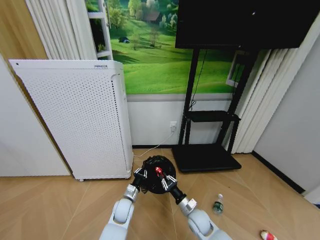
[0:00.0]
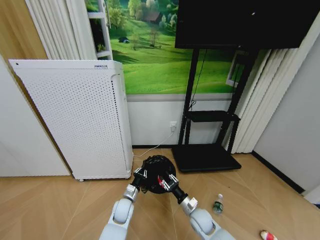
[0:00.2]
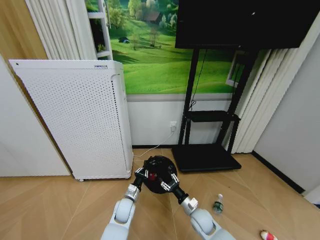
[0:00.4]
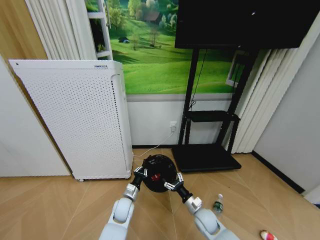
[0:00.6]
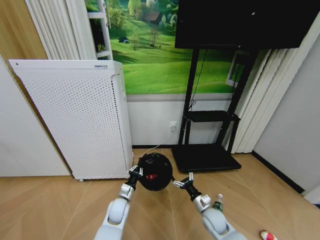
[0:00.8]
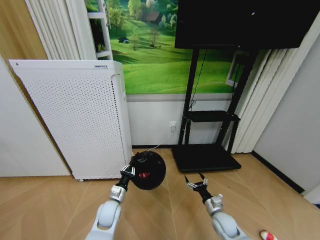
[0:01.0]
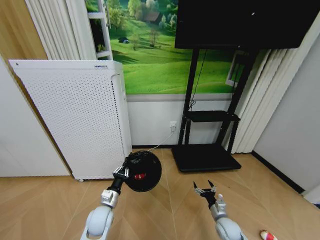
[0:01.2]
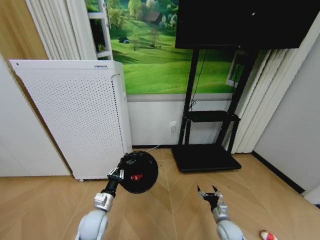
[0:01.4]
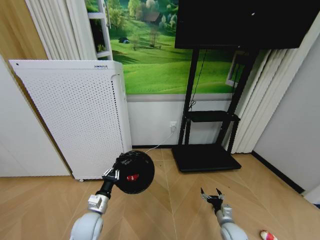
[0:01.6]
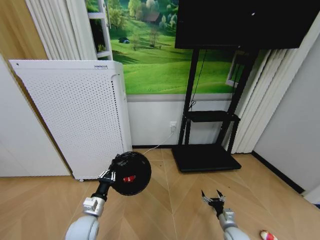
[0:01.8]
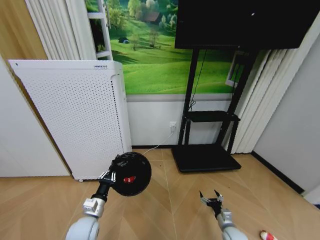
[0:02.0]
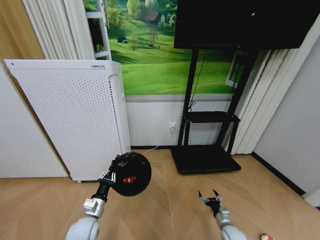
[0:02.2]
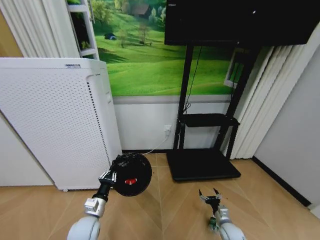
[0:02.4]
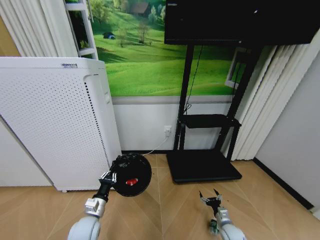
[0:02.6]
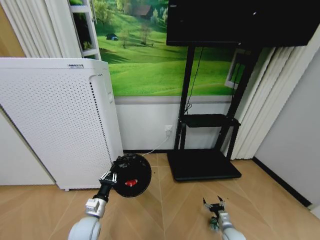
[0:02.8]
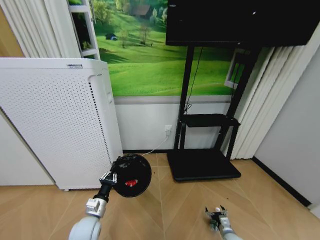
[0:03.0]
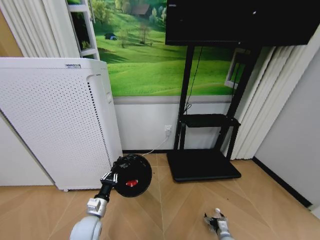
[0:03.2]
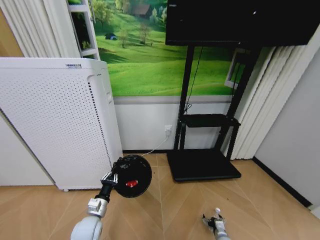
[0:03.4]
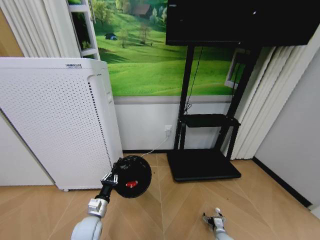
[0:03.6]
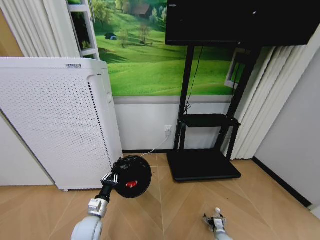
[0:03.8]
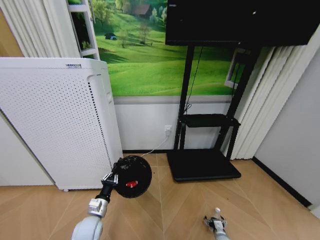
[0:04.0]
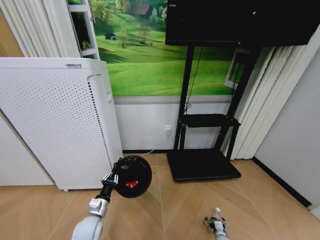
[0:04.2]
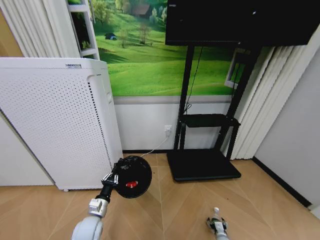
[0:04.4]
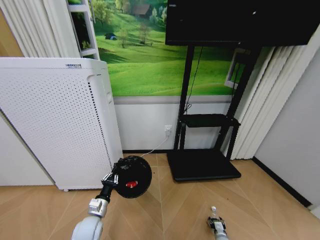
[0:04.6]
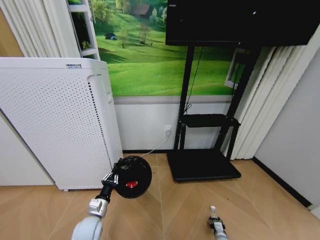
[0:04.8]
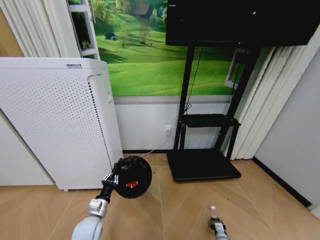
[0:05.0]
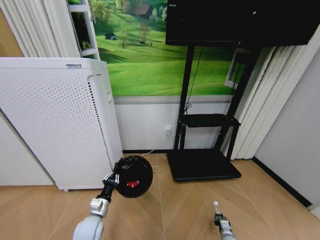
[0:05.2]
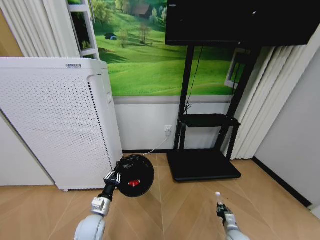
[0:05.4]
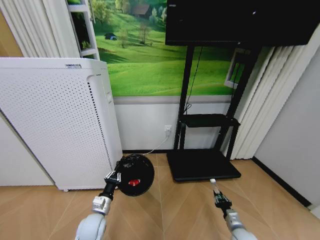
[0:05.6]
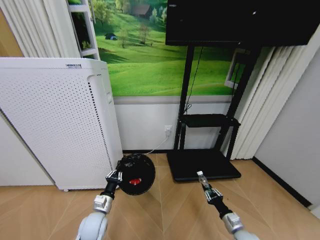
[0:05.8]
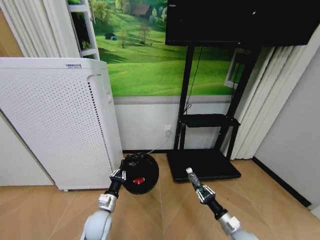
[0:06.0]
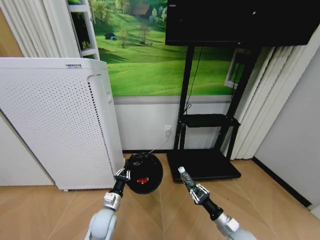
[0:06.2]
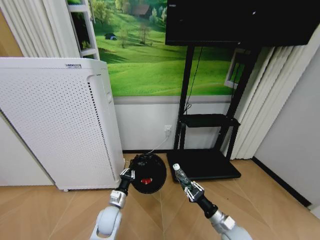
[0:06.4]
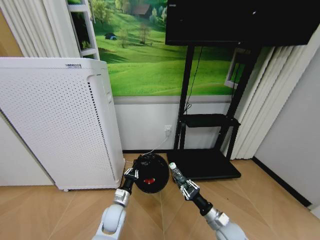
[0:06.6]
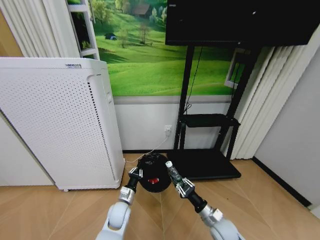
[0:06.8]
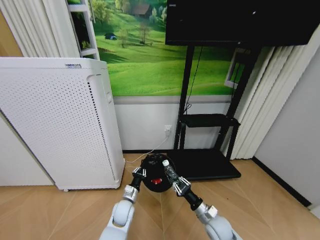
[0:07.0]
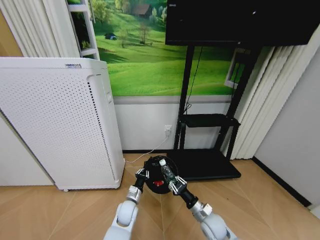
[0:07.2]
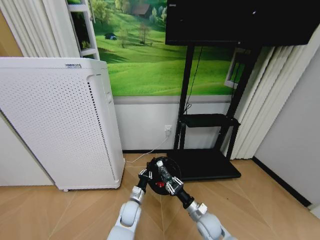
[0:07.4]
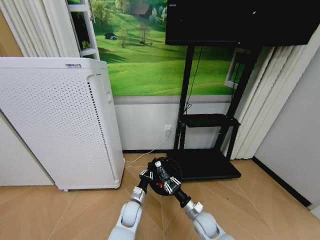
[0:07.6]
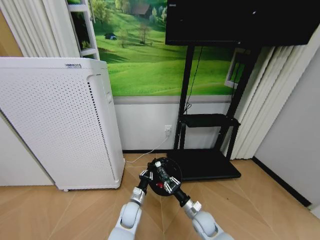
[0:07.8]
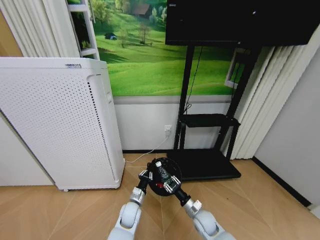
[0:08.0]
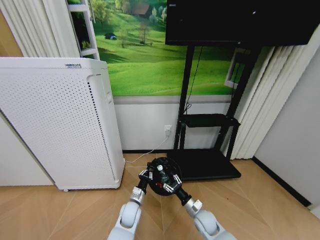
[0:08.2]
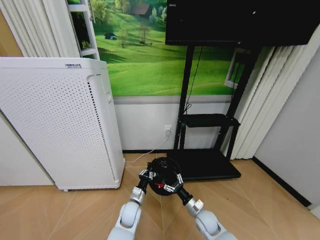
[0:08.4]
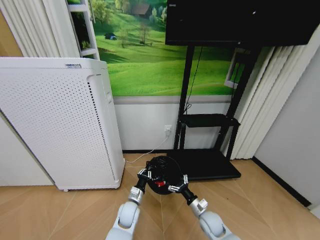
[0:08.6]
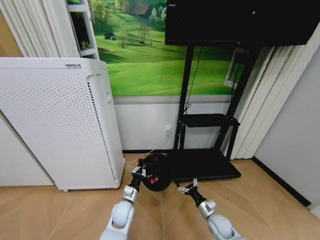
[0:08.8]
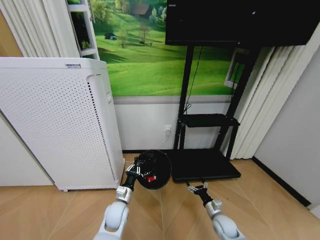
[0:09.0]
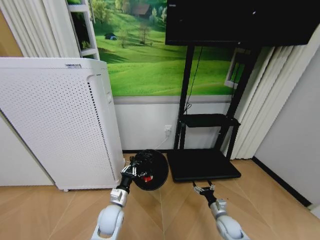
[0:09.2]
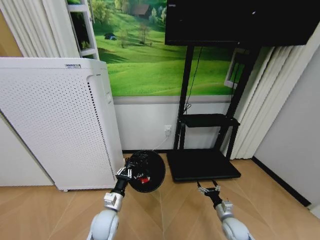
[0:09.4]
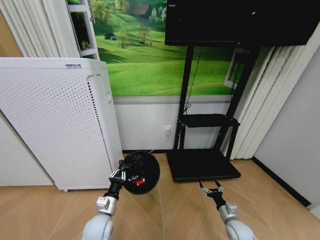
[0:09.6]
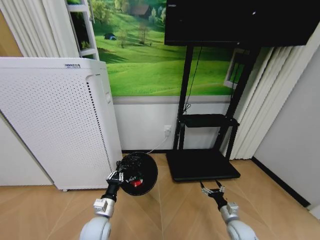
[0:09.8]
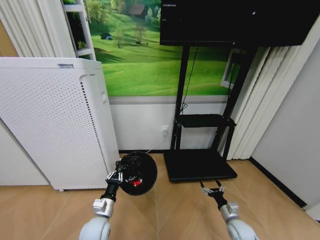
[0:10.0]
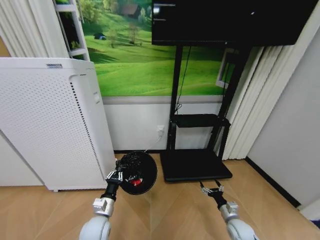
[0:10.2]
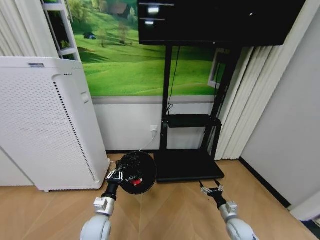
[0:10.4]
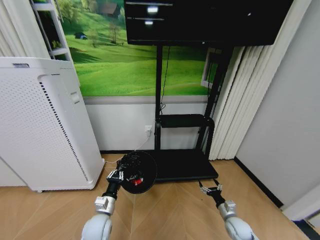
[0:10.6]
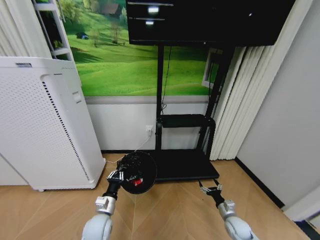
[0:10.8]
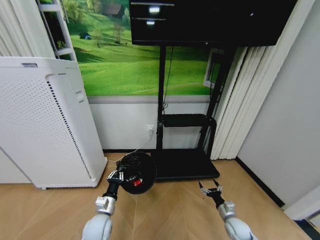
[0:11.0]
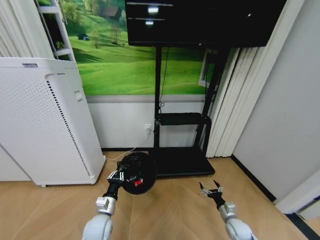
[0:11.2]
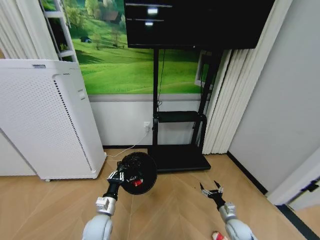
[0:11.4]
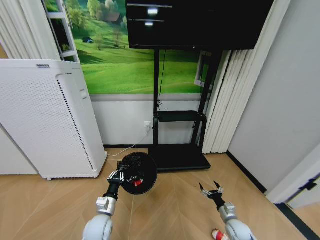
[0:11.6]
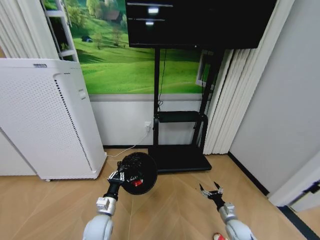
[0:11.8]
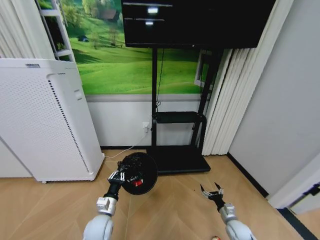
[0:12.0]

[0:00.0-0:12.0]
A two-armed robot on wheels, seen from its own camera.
Task of the whole recording: Pick up the trash bin and place the garbage on the floor into it.
0:00.0 to 0:01.6: The left gripper travels to the left, backward and upward by approximately 15 cm; the right gripper heads to the right, covering some 15 cm, and opens.
0:01.6 to 0:03.0: The right gripper goes approximately 10 cm downward.
0:03.0 to 0:04.4: The right gripper goes some 5 cm downward.
0:04.4 to 0:06.0: The right gripper shifts roughly 20 cm upward, and closes its fingers.
0:06.0 to 0:07.6: The right gripper shifts some 15 cm to the left and forward. The left gripper travels to the right, downward and forward by approximately 15 cm.
0:07.6 to 0:09.0: The right gripper goes some 10 cm to the right, and opens. The left gripper is displaced to the left by approximately 5 cm.
0:09.0 to 0:10.4: The left gripper is displaced backward and to the left by roughly 10 cm. Meanwhile the right gripper travels to the right by some 5 cm.

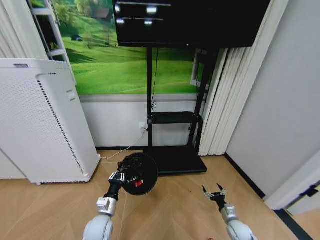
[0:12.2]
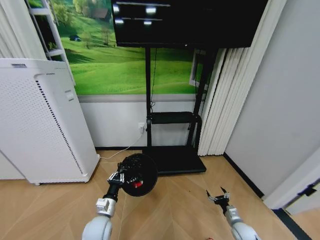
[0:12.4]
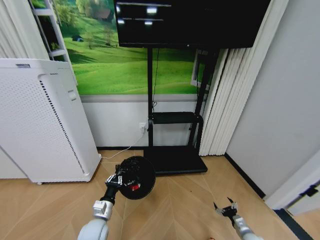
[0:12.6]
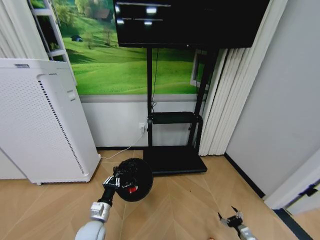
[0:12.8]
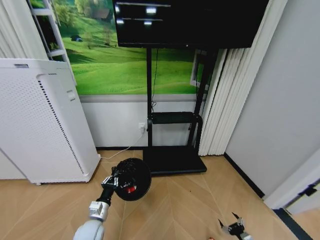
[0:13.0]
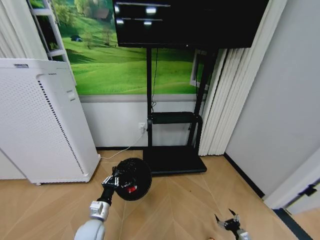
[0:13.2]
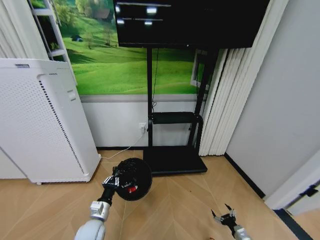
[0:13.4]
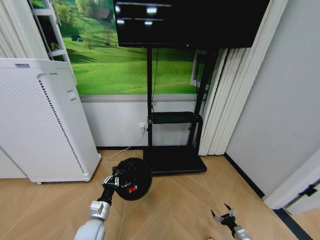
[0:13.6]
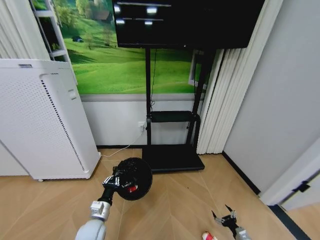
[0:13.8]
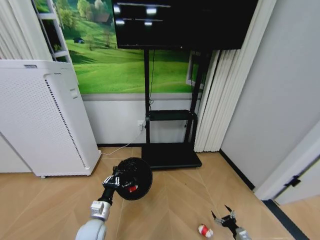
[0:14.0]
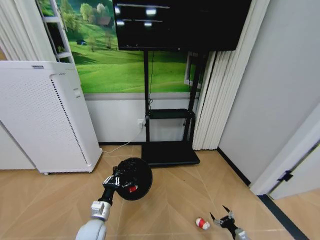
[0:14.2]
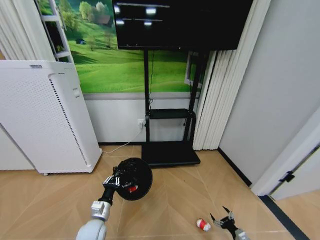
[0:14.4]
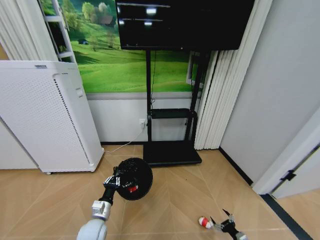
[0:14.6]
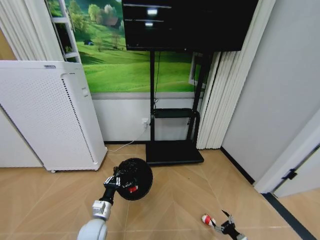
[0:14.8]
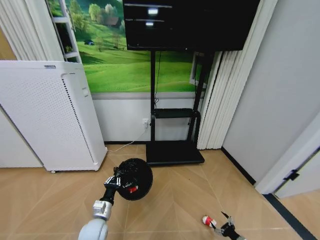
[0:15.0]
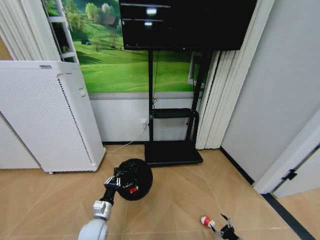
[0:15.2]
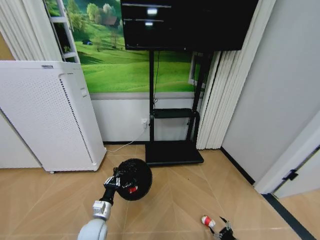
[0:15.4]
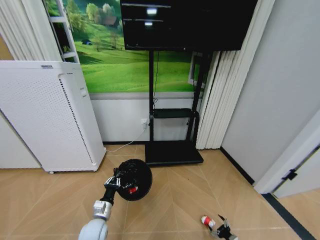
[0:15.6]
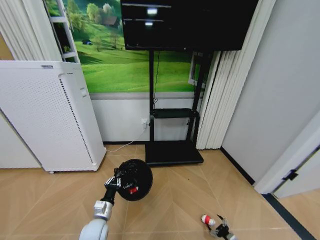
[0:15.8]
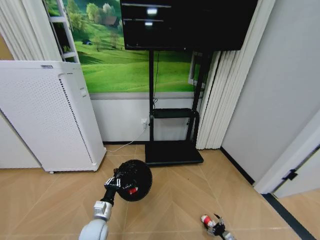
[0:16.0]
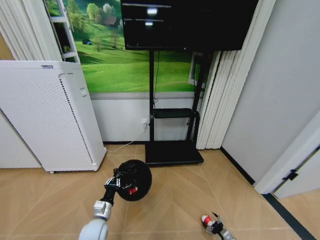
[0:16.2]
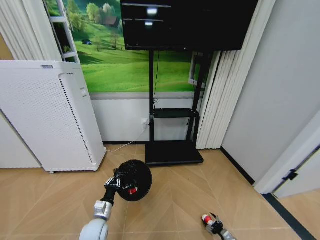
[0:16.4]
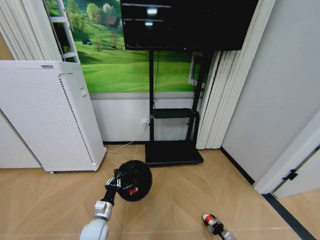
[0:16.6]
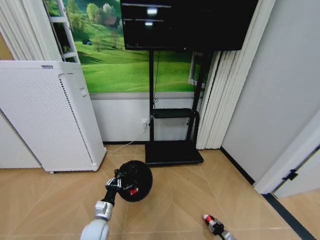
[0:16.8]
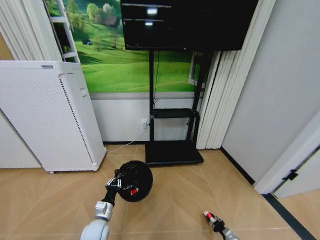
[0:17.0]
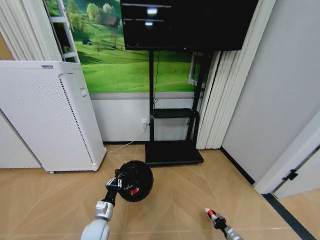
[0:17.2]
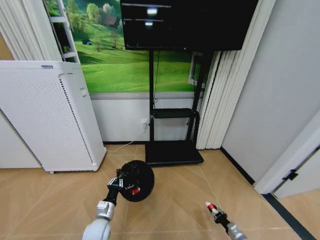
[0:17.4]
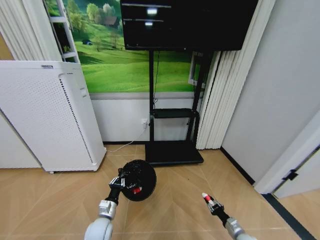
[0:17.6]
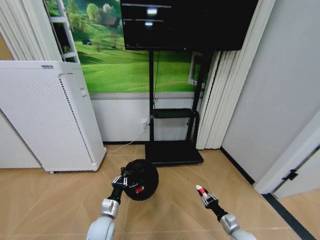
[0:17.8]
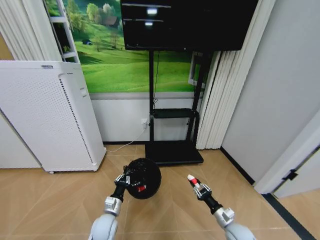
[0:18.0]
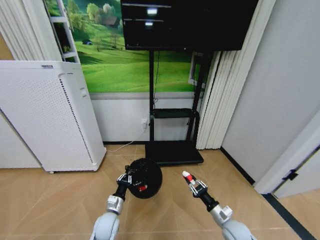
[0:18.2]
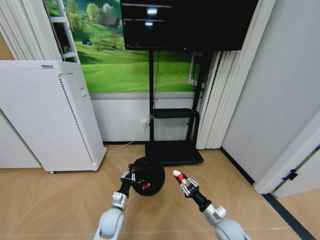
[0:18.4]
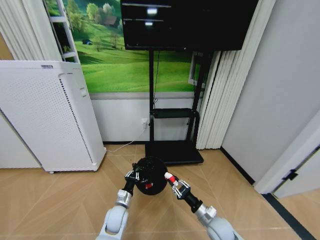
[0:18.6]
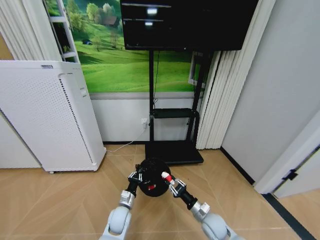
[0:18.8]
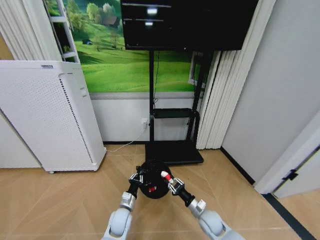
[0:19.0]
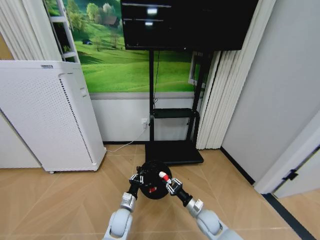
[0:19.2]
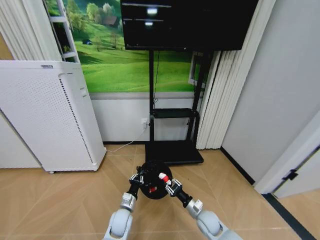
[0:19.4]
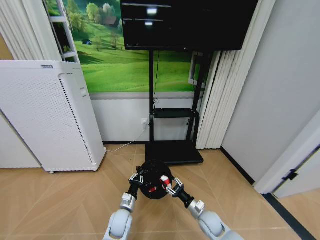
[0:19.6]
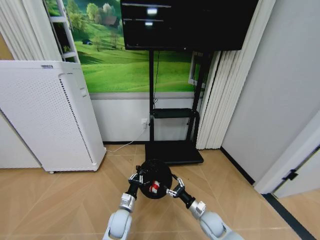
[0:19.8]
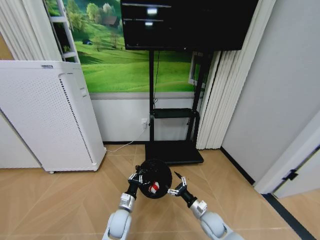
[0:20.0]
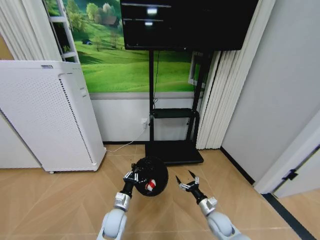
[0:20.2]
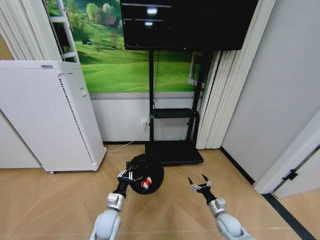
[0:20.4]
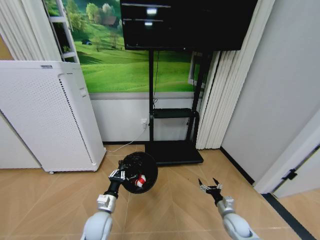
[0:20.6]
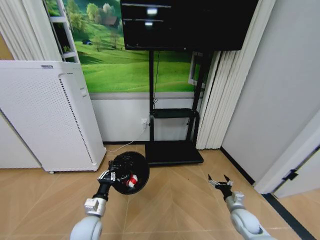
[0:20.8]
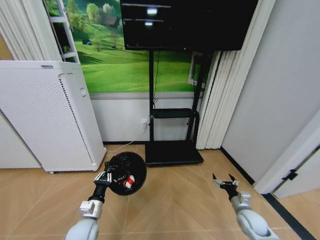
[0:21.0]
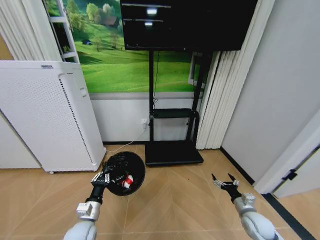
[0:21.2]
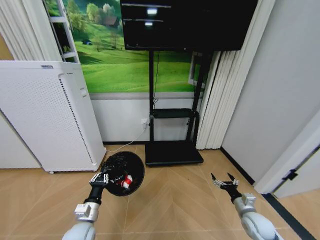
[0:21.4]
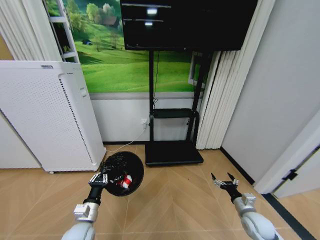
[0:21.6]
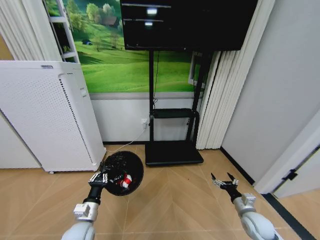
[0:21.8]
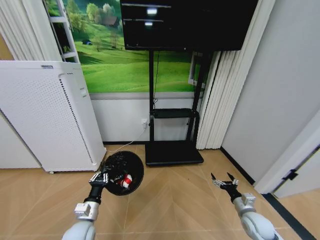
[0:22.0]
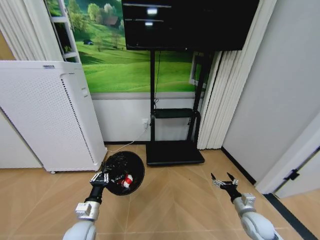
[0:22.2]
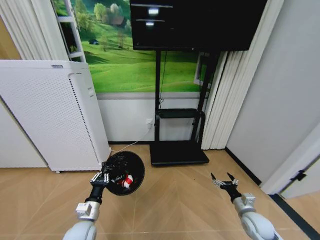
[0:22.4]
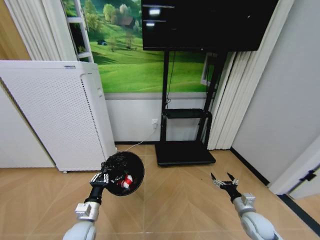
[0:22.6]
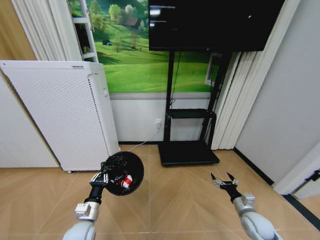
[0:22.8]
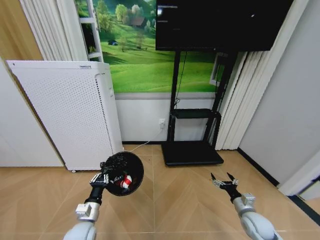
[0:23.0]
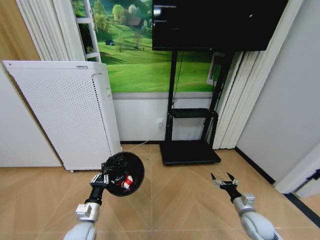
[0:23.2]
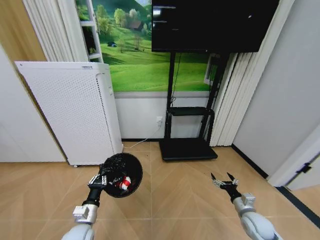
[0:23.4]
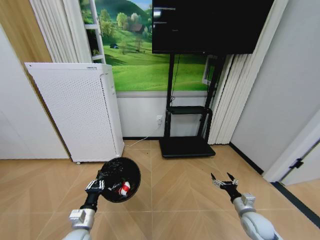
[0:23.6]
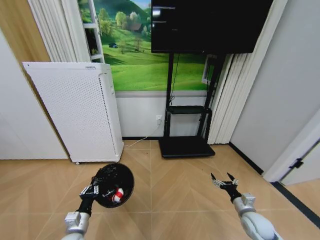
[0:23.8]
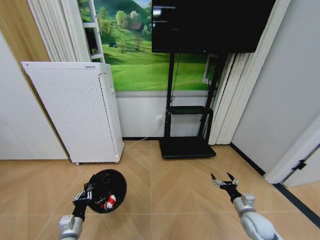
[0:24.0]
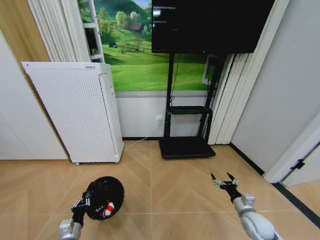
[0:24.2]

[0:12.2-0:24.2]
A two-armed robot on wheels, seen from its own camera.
Task of the whole recording: Pick up the trash bin and place the garbage on the floor into it.
0:12.2 to 0:13.8: The right gripper heads backward and to the right, covering some 10 cm.
0:15.2 to 0:16.6: The right gripper changes place by about 5 cm, and closes its fingers.
0:16.6 to 0:18.2: The right gripper travels upward and to the left by some 30 cm, and closes. The left gripper ends up some 5 cm from where it was.
0:18.2 to 0:19.8: The right gripper travels to the left by roughly 5 cm, and opens.
0:19.8 to 0:21.2: The left gripper shifts about 15 cm to the left, upward and backward; the right gripper shifts some 15 cm to the right.
0:22.6 to 0:24.2: The left gripper goes roughly 10 cm to the left and downward.
